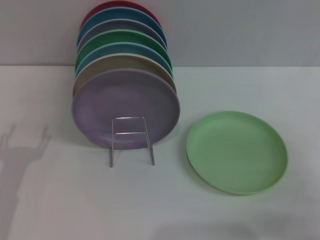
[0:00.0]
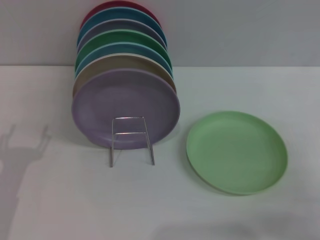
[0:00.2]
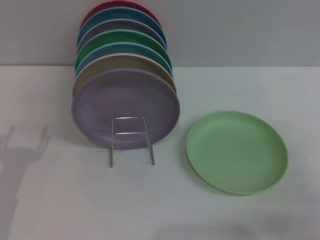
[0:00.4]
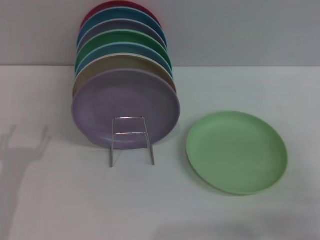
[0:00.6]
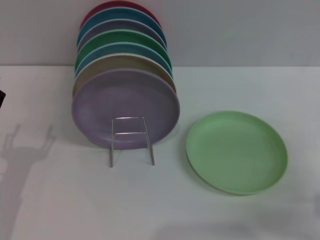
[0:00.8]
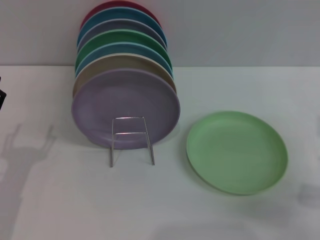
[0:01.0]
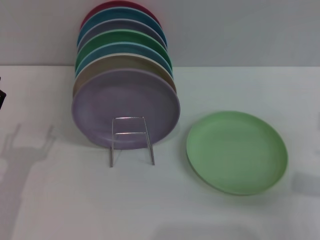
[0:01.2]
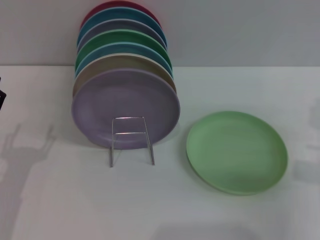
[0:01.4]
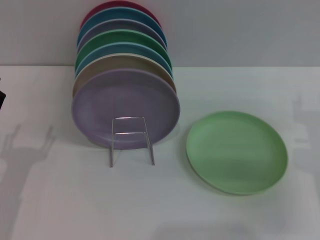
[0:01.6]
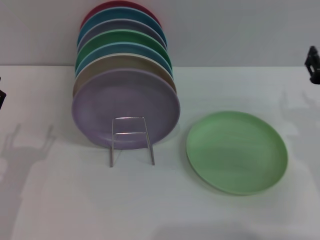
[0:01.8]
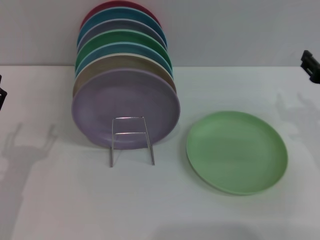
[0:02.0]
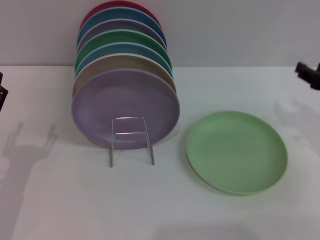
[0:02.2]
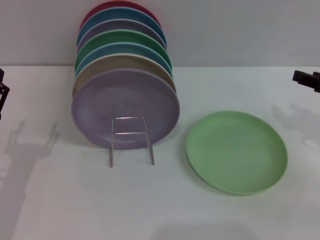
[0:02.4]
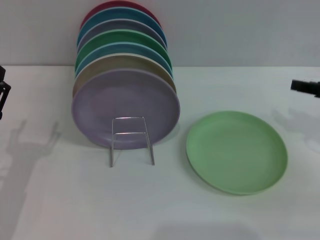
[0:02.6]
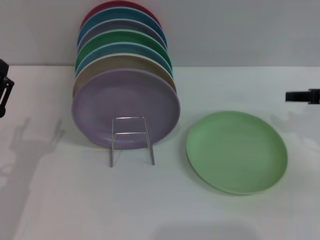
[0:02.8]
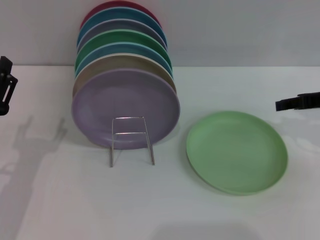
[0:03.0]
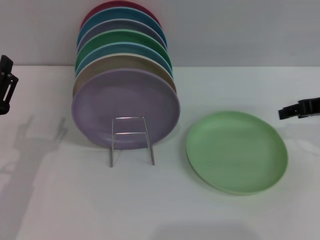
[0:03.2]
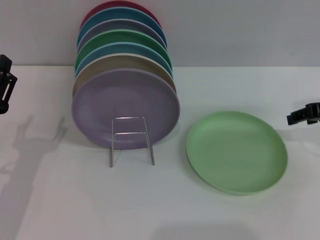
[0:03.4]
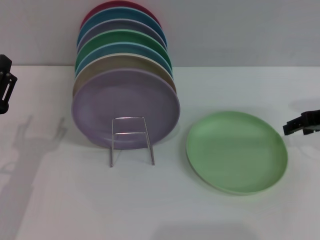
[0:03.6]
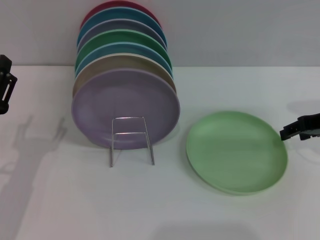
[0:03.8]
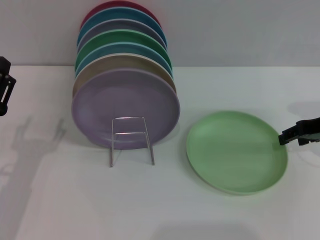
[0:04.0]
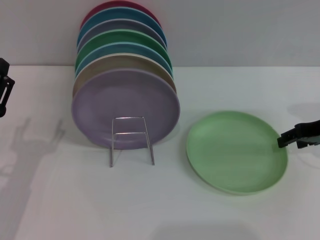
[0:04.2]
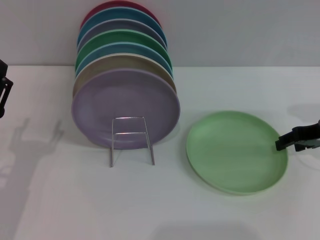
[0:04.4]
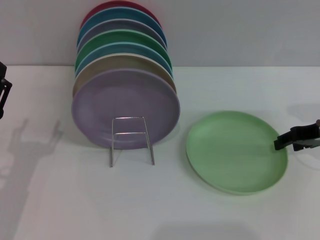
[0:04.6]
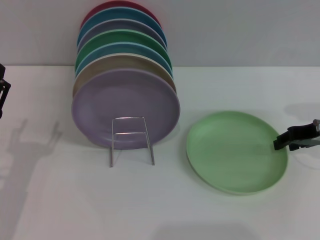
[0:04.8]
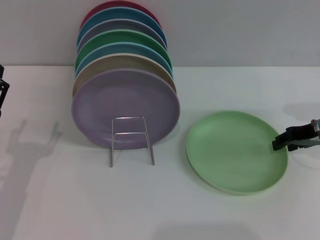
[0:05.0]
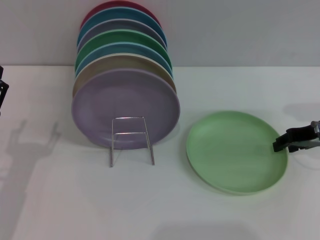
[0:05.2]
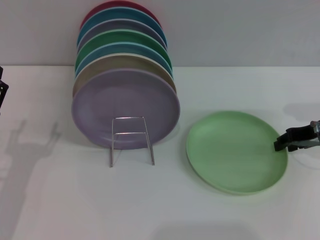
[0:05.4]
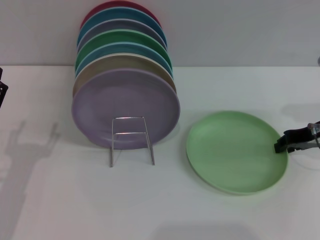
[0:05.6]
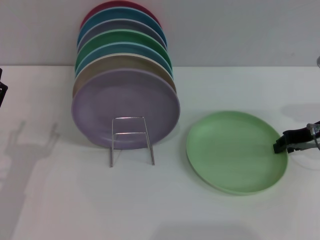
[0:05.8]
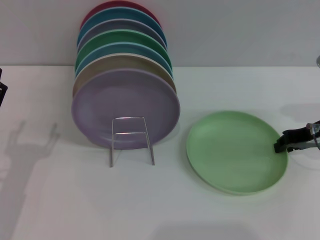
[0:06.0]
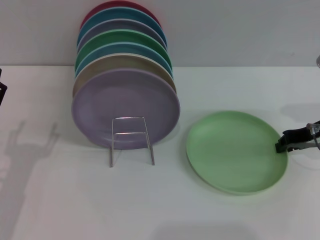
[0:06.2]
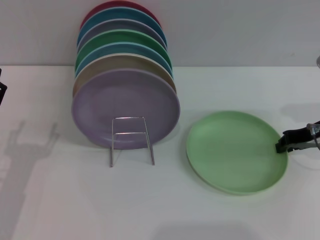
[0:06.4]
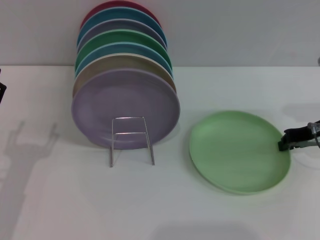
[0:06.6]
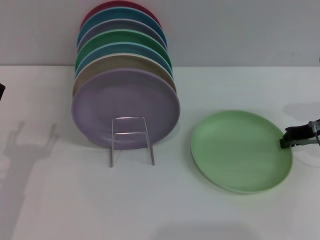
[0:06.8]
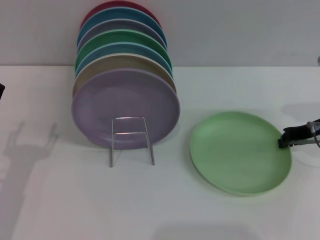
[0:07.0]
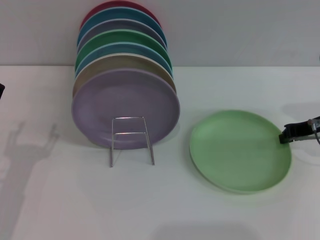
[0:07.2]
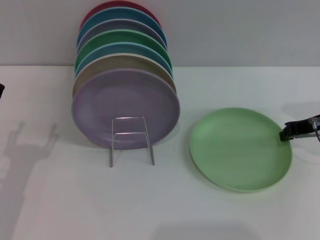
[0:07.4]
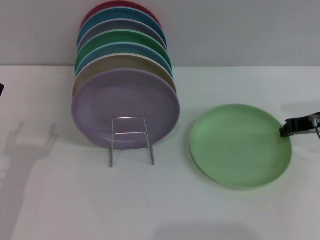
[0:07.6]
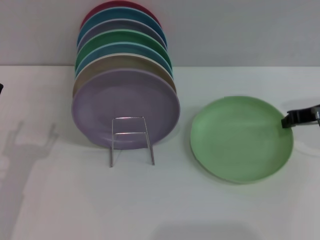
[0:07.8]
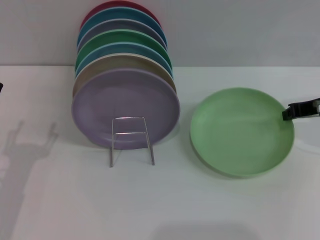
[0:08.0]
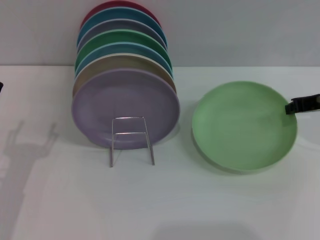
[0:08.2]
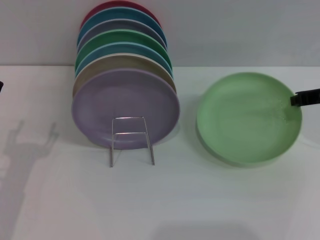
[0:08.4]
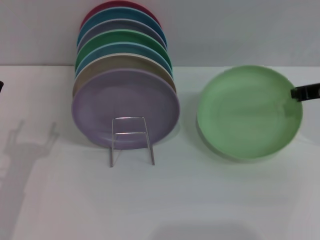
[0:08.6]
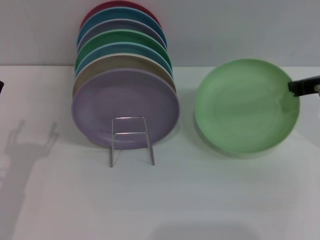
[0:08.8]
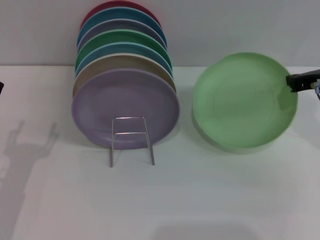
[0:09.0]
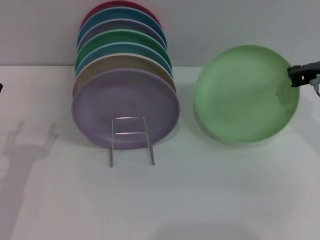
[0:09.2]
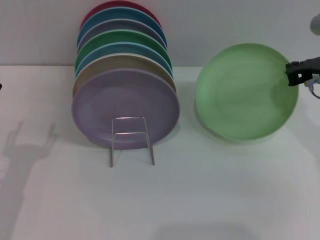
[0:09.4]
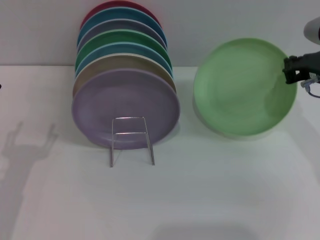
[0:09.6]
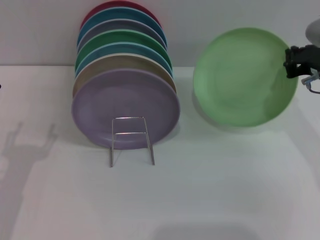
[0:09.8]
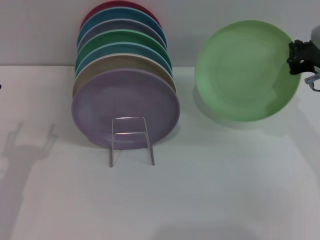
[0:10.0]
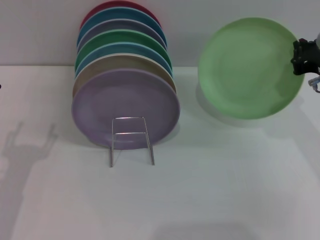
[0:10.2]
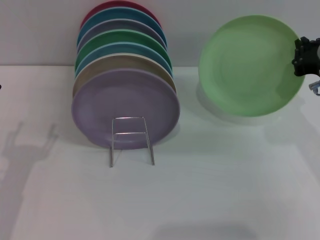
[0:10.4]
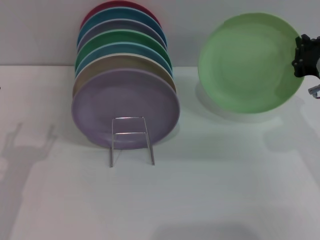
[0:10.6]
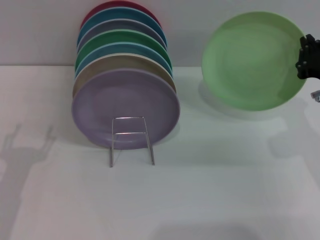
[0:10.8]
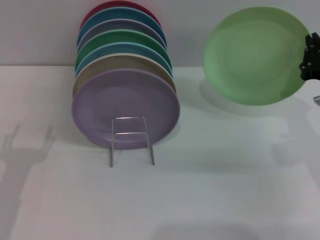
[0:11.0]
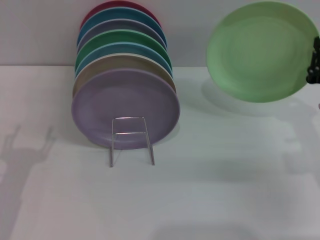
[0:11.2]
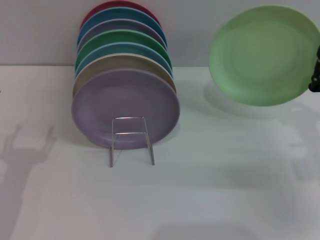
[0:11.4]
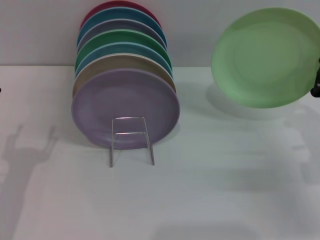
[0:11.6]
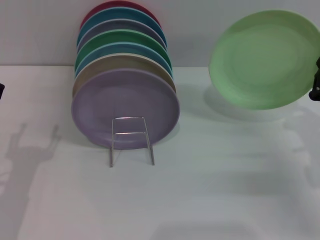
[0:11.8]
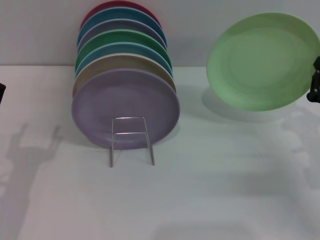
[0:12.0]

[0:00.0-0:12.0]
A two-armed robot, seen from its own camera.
Task of the whole recording: Grip the plate with one hand, pass it to the other, then set it on the shelf.
Step, 0:00.0 to 0:08.4: Pick up the plate with the right gripper.
0:00.0 to 0:01.6: The right gripper goes approximately 5 cm forward.
0:01.6 to 0:03.0: The right gripper heads upward and forward, covering approximately 10 cm.
0:03.0 to 0:04.4: The grippers stay close to where they were, moving slightly.
0:04.4 to 0:06.0: The right gripper closes up.
0:06.0 to 0:07.6: The right gripper closes.
0:07.6 to 0:09.0: The right gripper changes place by about 5 cm.
0:10.4 to 0:12.0: The right gripper shifts some 10 cm downward.

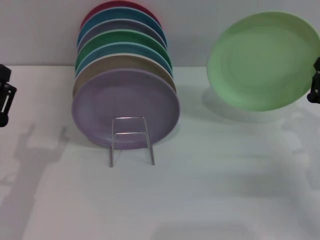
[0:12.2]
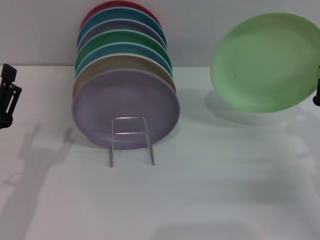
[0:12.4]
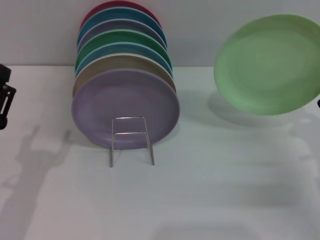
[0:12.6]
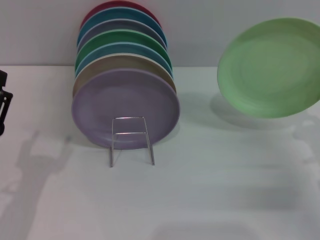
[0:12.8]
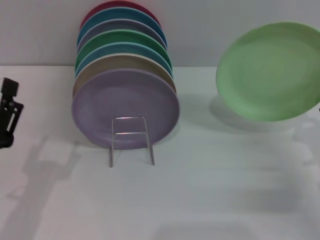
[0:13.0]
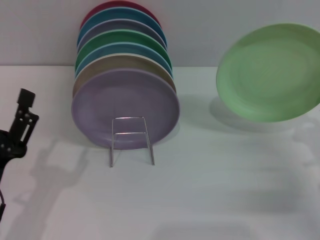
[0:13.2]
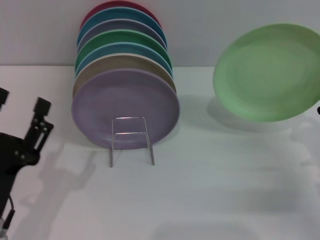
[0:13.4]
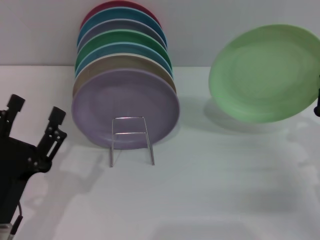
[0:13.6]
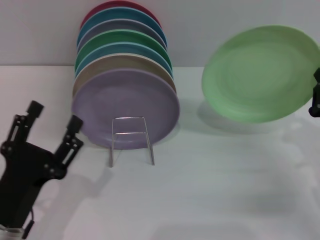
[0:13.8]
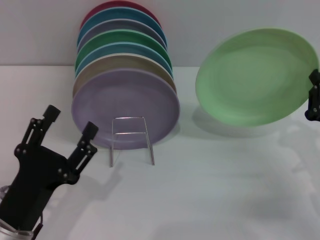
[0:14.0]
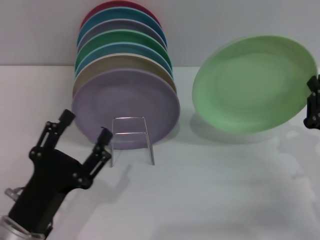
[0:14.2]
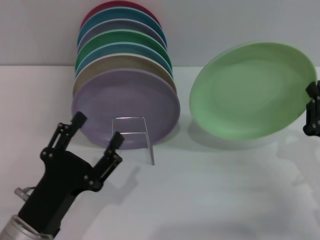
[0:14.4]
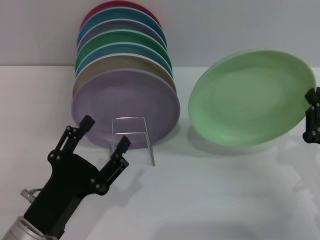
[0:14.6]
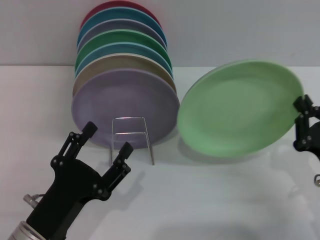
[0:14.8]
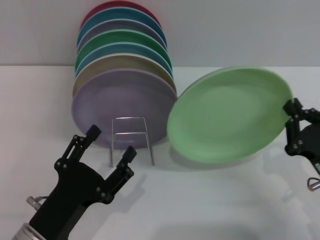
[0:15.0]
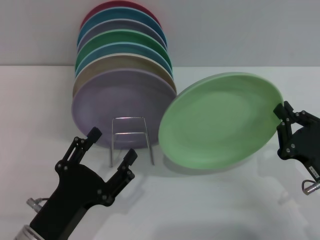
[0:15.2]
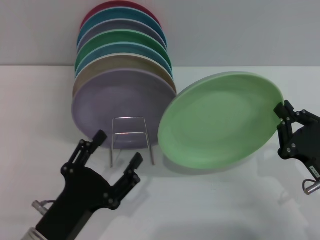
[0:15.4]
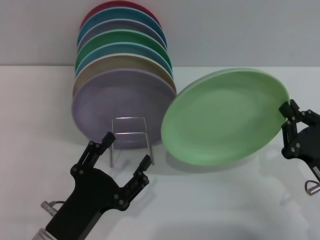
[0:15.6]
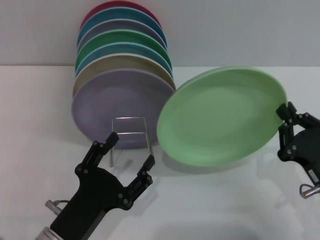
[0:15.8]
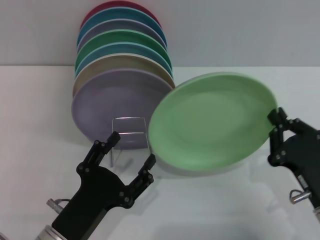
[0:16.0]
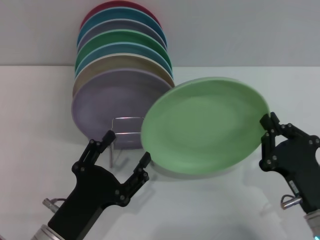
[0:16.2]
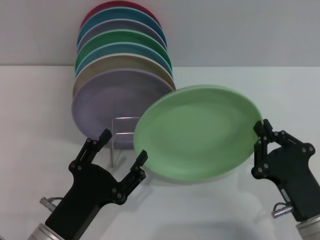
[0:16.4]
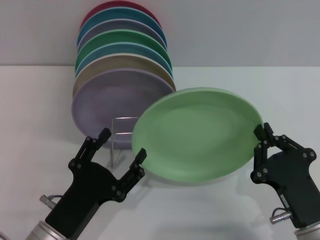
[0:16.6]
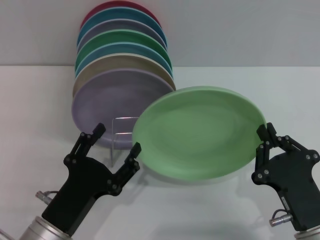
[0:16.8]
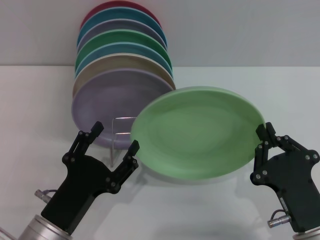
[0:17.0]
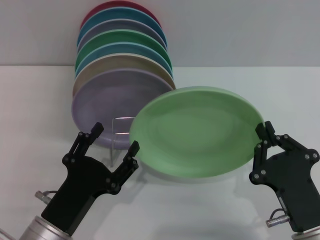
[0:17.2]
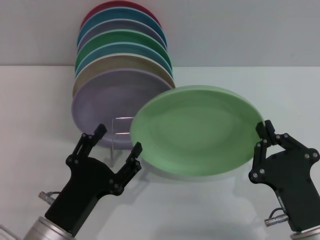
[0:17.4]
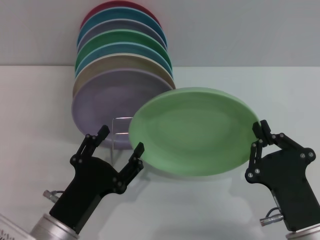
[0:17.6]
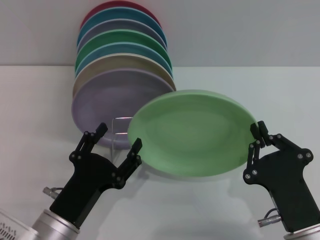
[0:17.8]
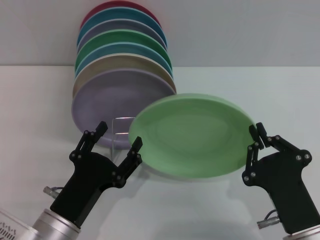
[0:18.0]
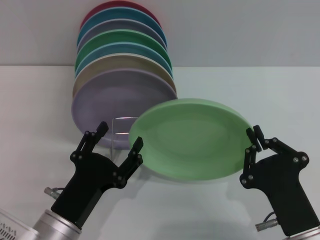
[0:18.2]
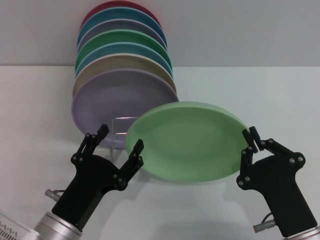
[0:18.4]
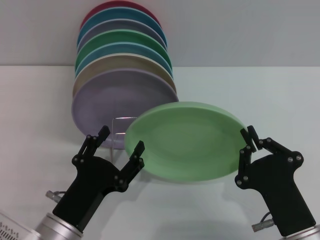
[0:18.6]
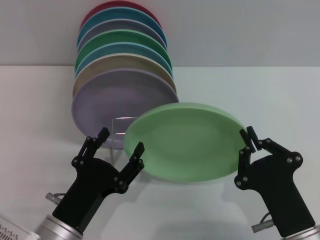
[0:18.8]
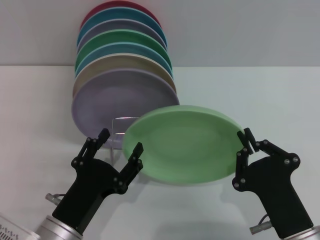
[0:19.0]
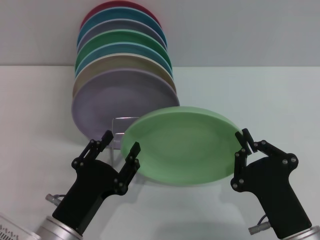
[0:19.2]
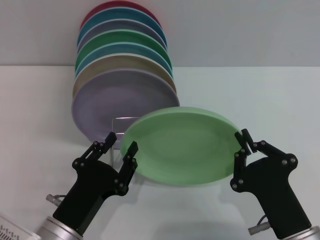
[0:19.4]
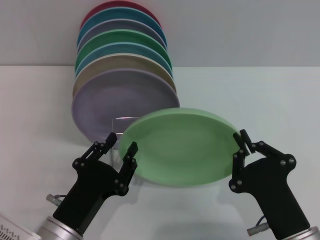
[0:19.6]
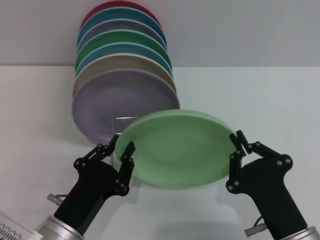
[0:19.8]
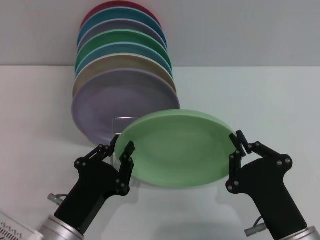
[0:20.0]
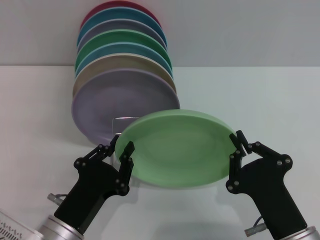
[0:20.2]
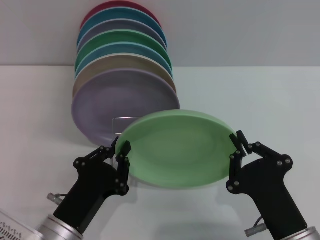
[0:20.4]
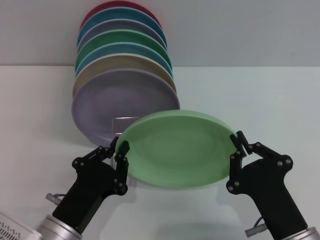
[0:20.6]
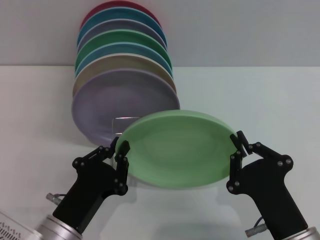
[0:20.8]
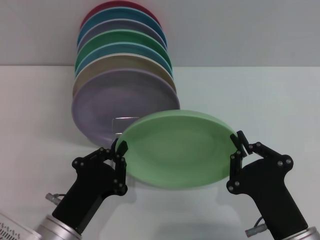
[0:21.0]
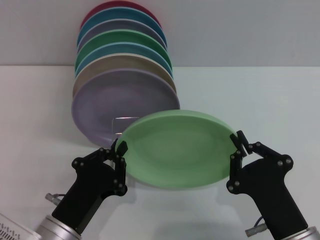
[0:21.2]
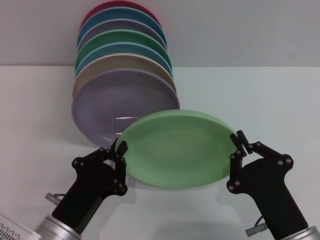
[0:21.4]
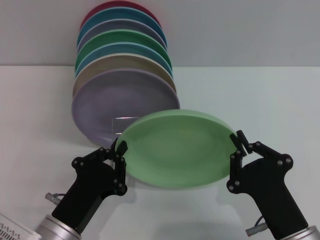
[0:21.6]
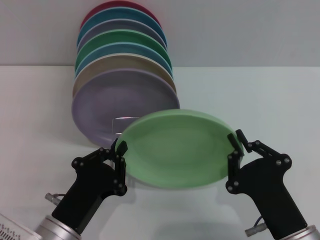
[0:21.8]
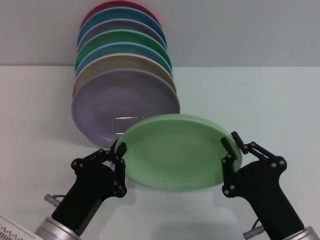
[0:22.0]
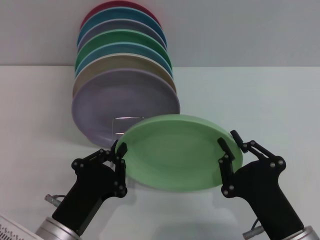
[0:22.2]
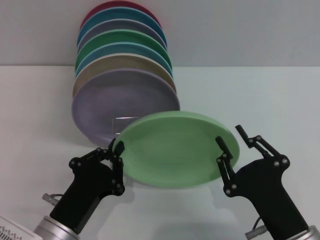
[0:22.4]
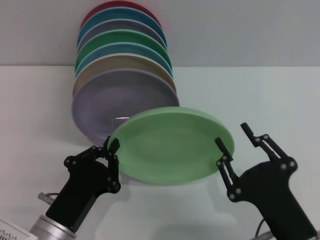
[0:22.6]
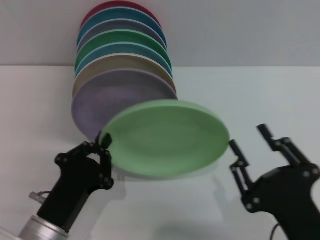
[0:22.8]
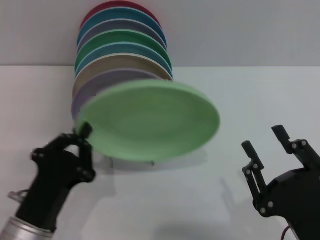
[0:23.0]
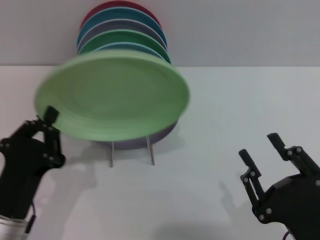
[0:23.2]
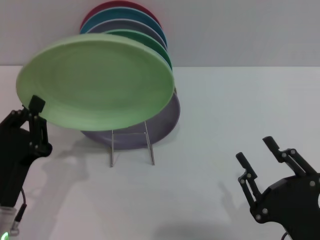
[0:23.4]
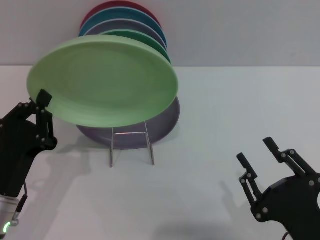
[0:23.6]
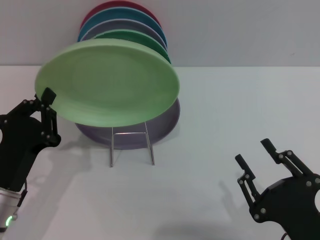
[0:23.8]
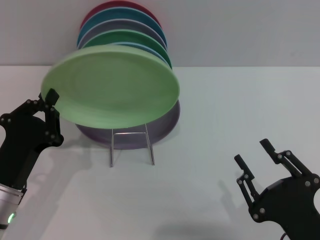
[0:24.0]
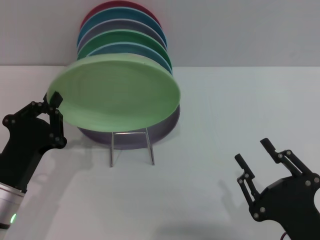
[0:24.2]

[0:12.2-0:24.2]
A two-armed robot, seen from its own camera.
Task of the whole recording: Grip the plate with one hand, pass it to the other, then set it on the shelf.
Step, 0:12.2 to 0:22.8: Pass the plate from the right gripper to the left gripper.
0:12.2 to 0:13.8: The left gripper changes place by approximately 5 cm.
0:13.8 to 0:15.2: The right gripper shifts by roughly 5 cm.
0:15.2 to 0:16.6: The right gripper travels to the left and backward by roughly 10 cm.
0:16.6 to 0:18.2: The grippers make only small movements.
0:18.2 to 0:19.8: The left gripper closes its fingers.
0:19.8 to 0:21.2: The left gripper closes up.
0:21.2 to 0:22.6: The right gripper opens its fingers.
0:22.6 to 0:24.2: The left gripper travels to the left by roughly 5 cm.
